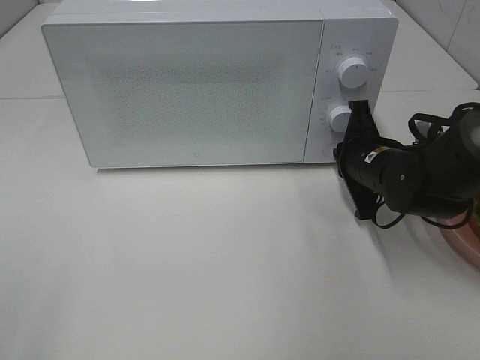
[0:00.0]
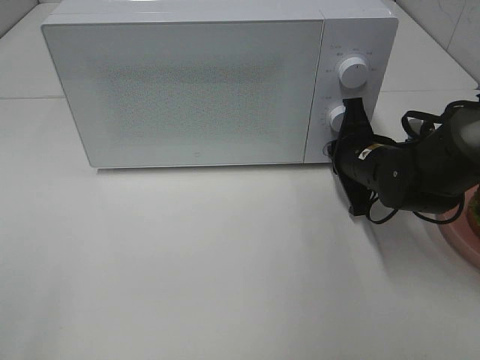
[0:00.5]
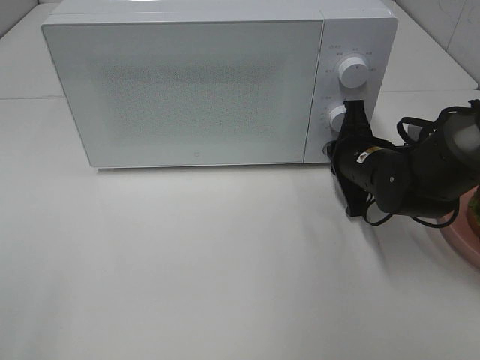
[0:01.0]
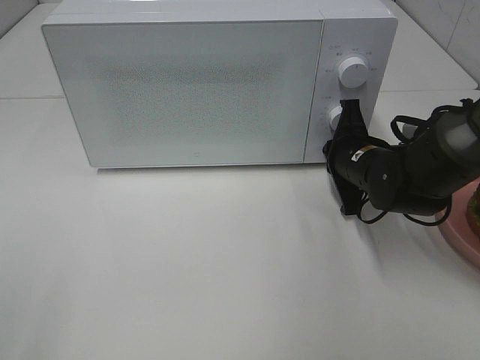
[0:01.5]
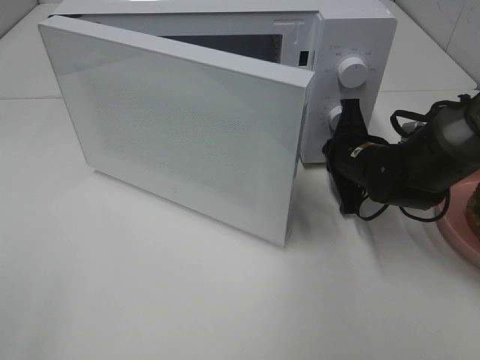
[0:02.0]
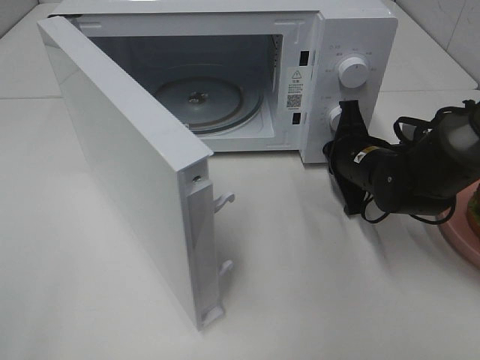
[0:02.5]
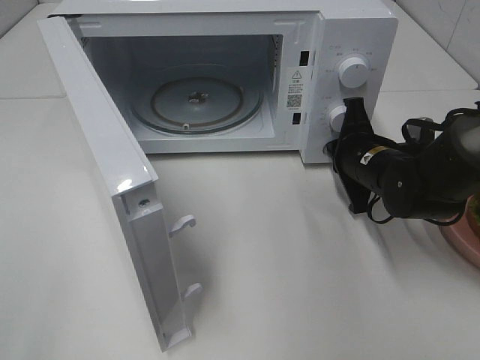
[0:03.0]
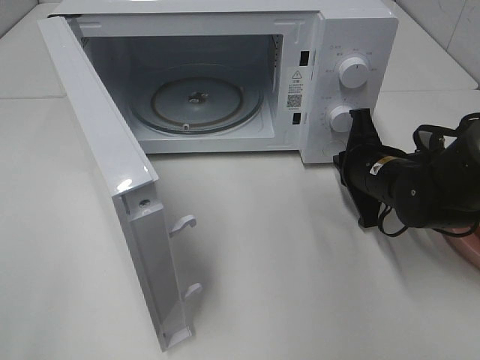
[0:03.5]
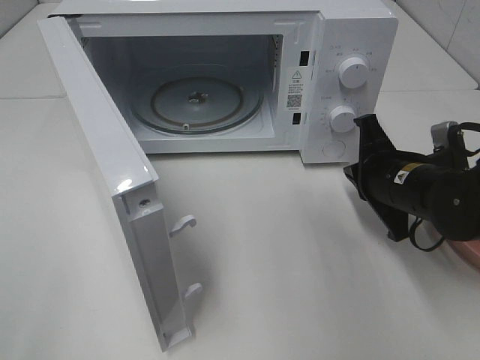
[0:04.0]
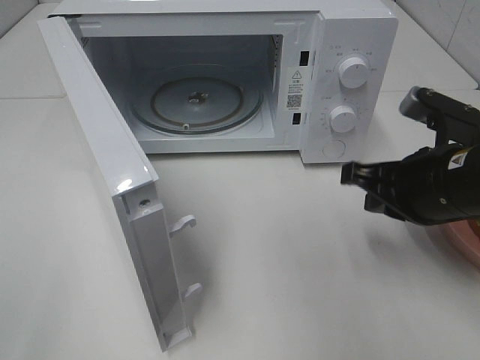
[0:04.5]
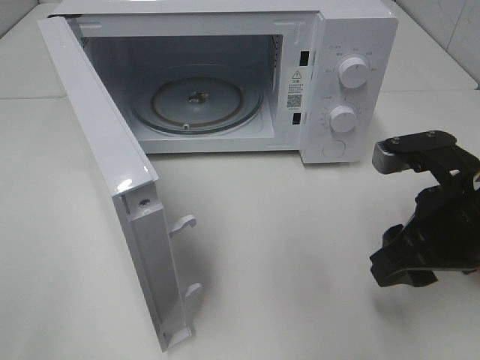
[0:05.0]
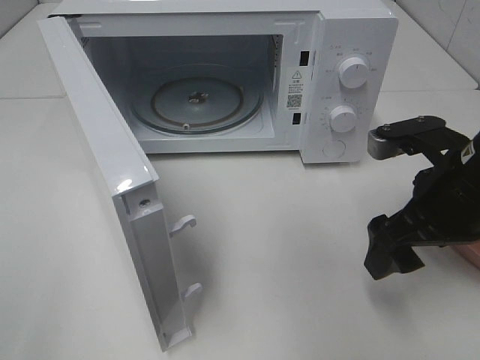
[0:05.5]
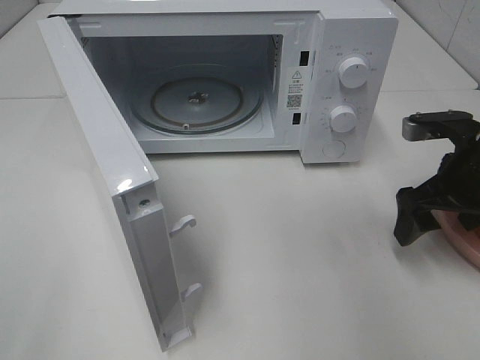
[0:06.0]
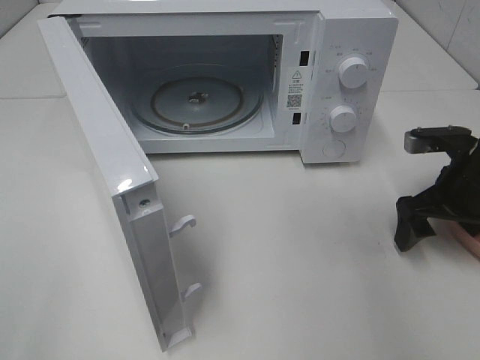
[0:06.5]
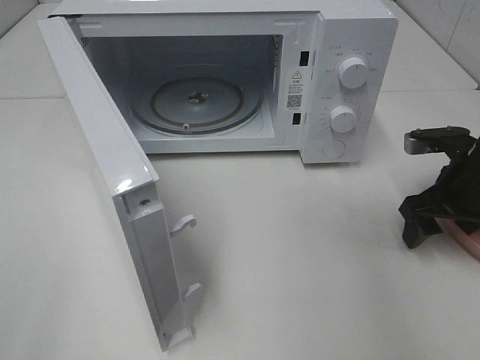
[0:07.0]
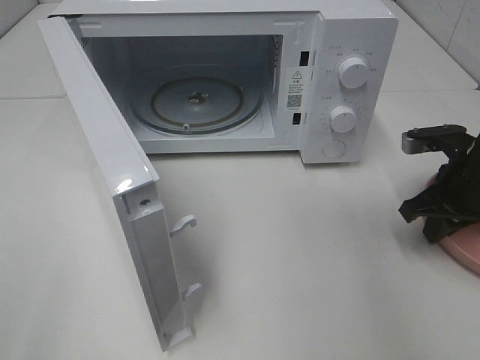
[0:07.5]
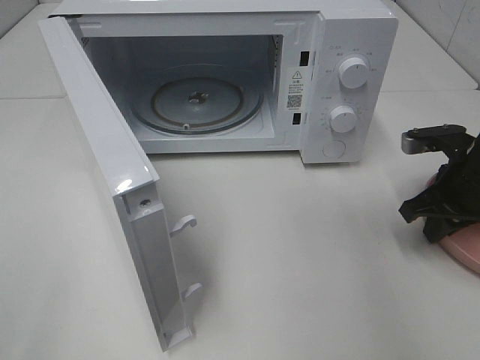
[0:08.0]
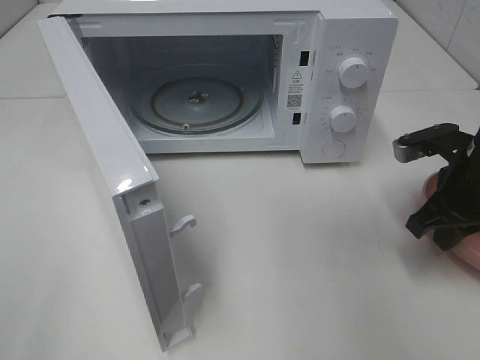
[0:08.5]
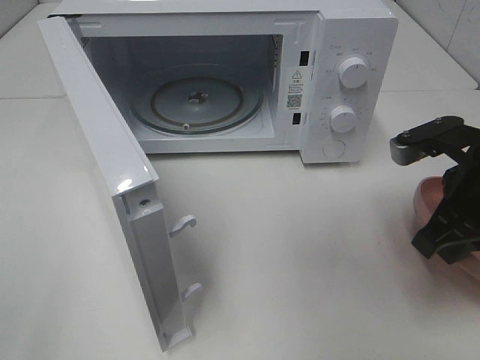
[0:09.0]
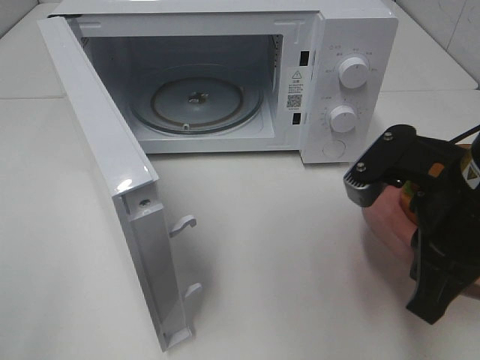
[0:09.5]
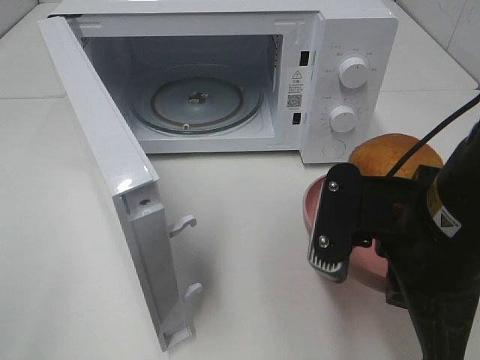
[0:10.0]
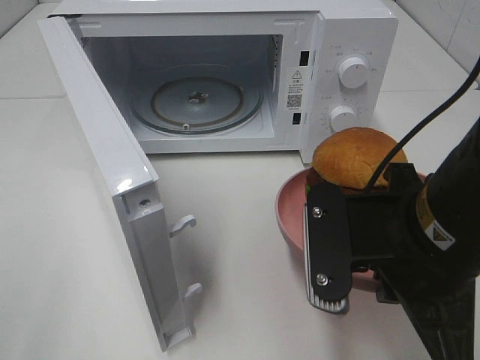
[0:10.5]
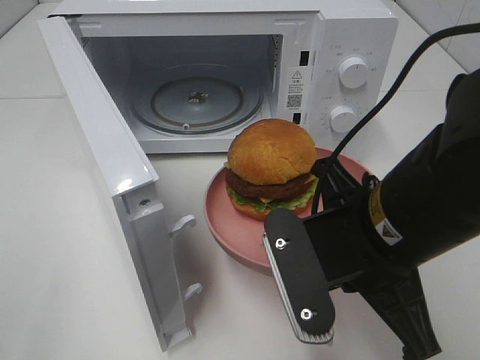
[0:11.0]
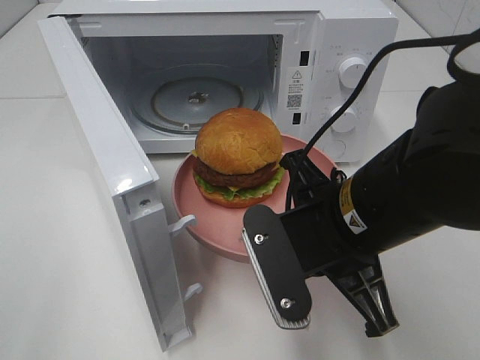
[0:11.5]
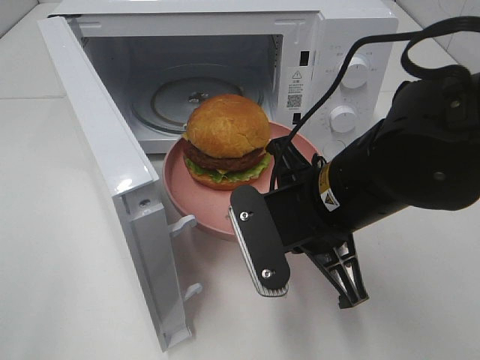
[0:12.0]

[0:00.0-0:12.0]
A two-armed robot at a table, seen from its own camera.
Task of the whole recording: Heat the burger.
Step, 0:00.0 to 0:03.0: Right hand: press the switch.
Step, 0:03.5 to 0:07.5: Right hand: grab the plate with the hamburger.
0:00.0 to 0:02.0: The grippers move only a little.
0:02.0 to 0:04.0: The right gripper goes approximately 5 cm backward.
0:04.0 to 0:06.0: The right gripper is displaced to the right by roughly 5 cm, moves approximately 10 cm backward and comes back, and opens.
0:06.0 to 0:08.0: The right gripper closes.
0:08.0 to 0:10.0: The right gripper moves backward, to the left and upward, some 25 cm.
0:10.0 to 0:12.0: The right gripper heads forward and to the left, covering roughly 10 cm.

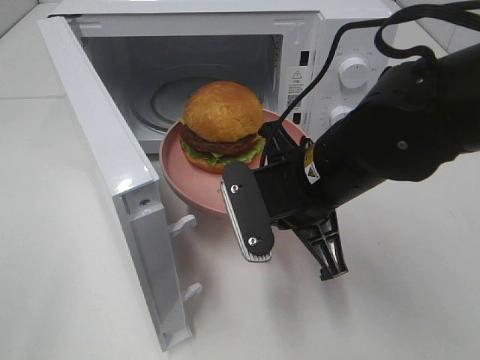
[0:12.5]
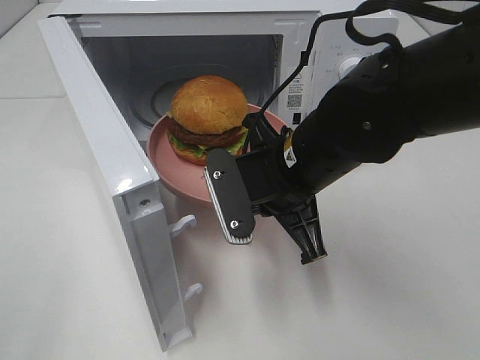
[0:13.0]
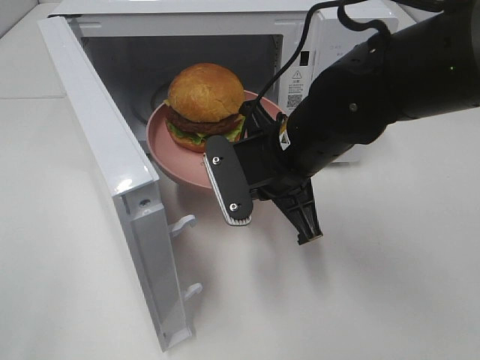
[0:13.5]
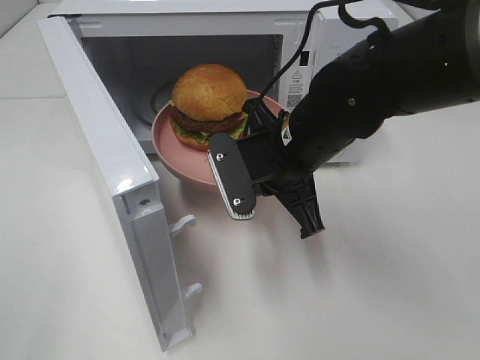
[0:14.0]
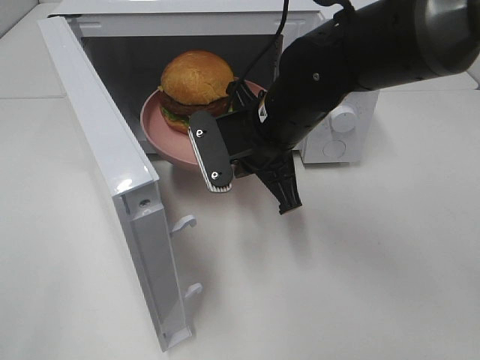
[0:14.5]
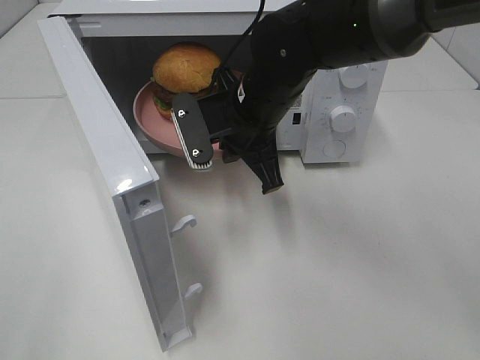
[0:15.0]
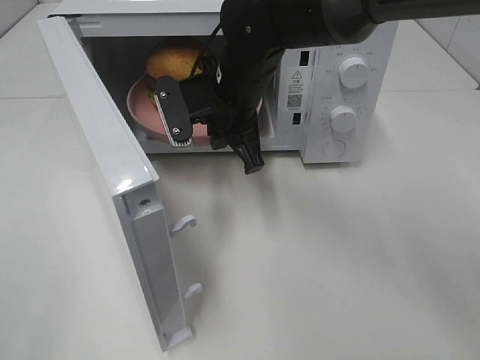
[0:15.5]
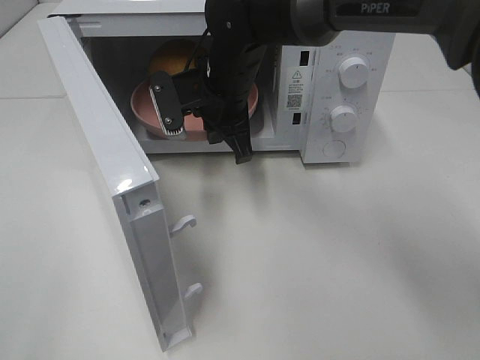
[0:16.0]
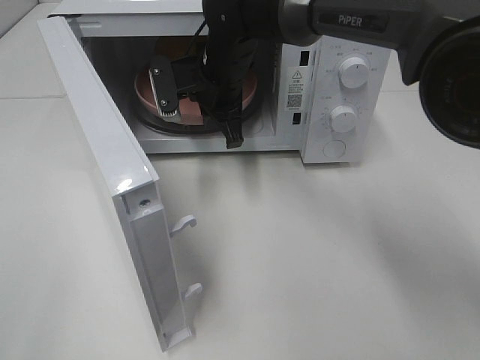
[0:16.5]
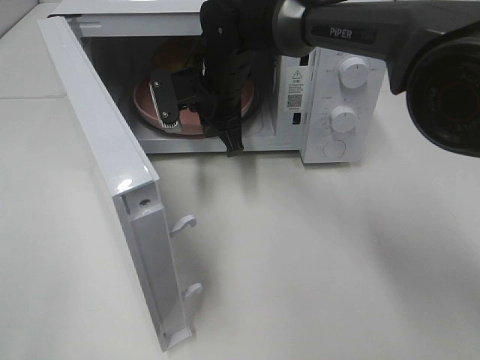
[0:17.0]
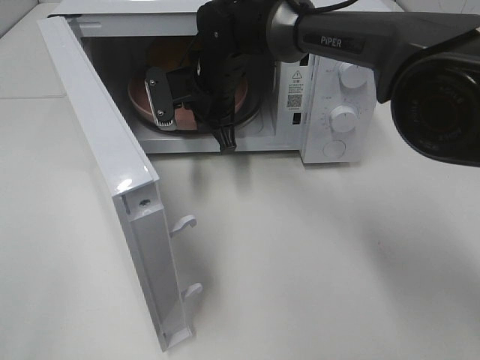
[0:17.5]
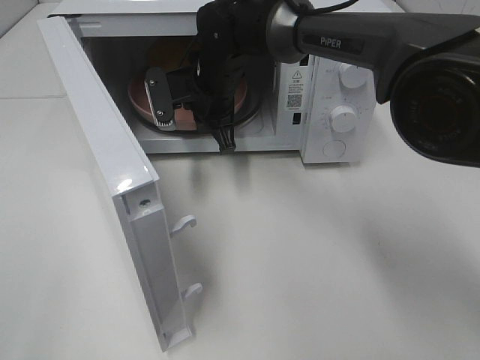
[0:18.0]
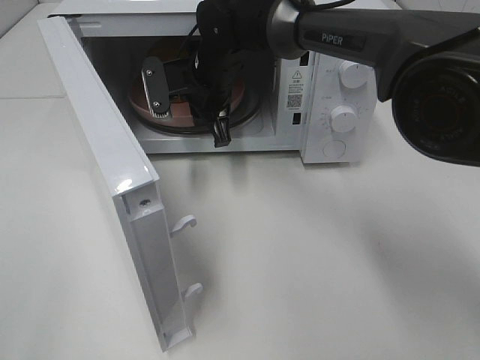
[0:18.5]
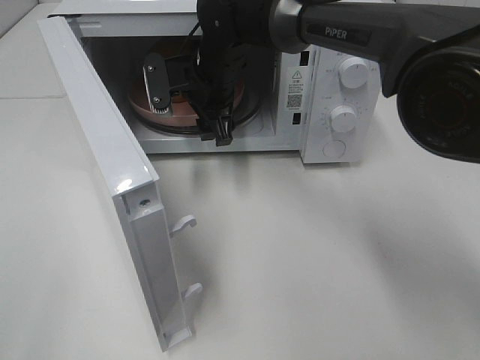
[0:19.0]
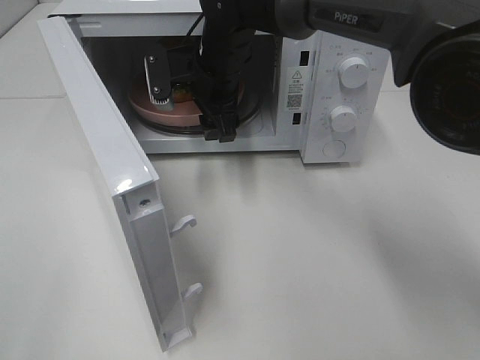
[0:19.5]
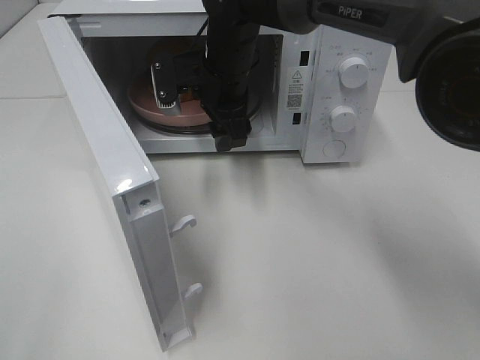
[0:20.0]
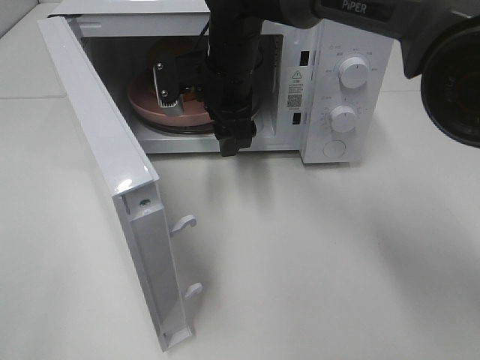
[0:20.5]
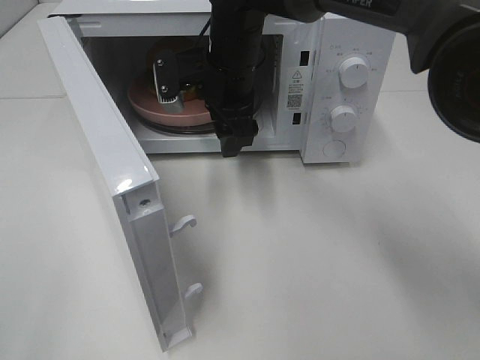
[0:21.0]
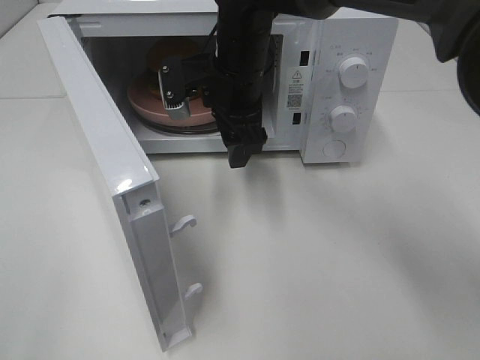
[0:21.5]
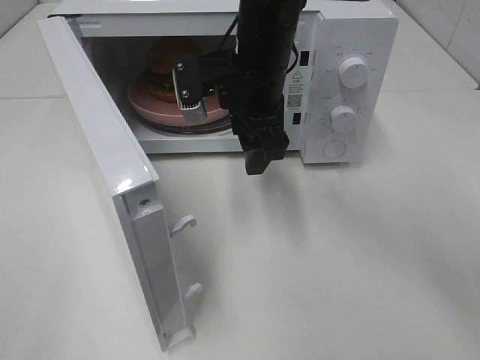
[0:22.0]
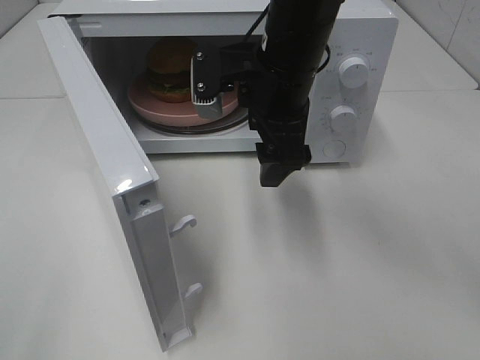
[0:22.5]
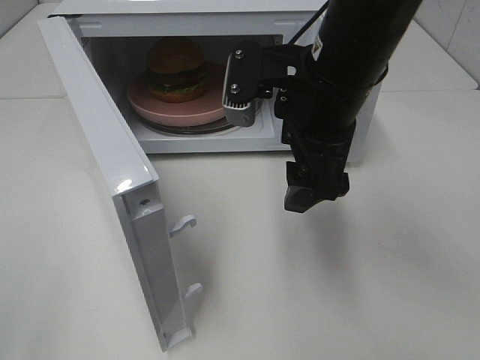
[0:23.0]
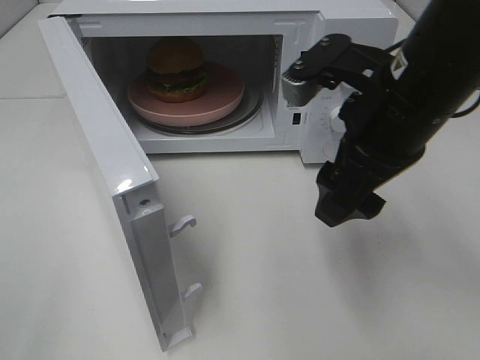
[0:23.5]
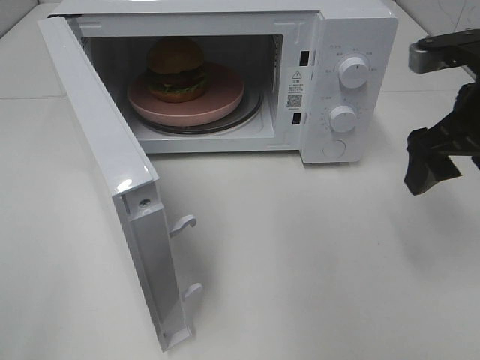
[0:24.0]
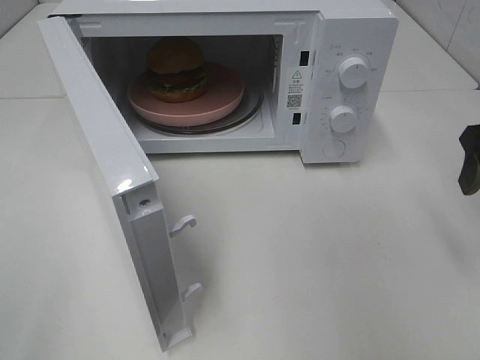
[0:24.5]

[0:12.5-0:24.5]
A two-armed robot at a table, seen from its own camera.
Task of the whole recording: Heat the burger.
Step, 0:12.5 to 0:18.5: Right hand: place the plate in the microwave.
0:12.5 to 0:14.5: The right gripper goes approximately 10 cm forward.
0:14.5 to 0:16.5: The right gripper moves forward and to the left, roughly 15 cm.
0:16.5 to 0:18.5: The grippers make only small movements.
0:18.5 to 0:20.5: The right gripper opens its fingers.
0:20.5 to 0:22.5: The right gripper moves backward and to the right, approximately 10 cm.
0:22.5 to 0:24.5: The right gripper is displaced to the right by about 25 cm.

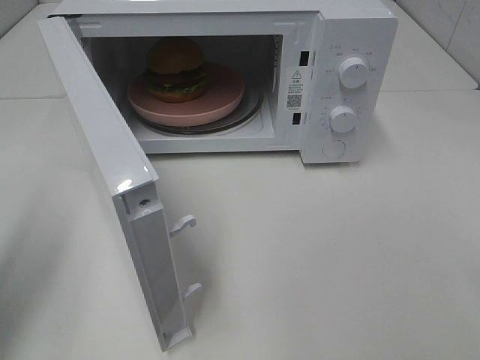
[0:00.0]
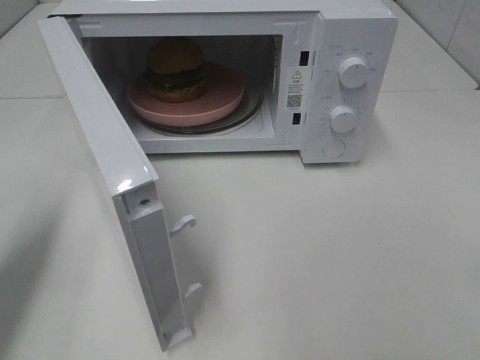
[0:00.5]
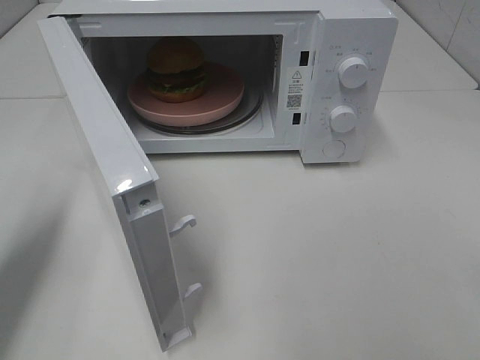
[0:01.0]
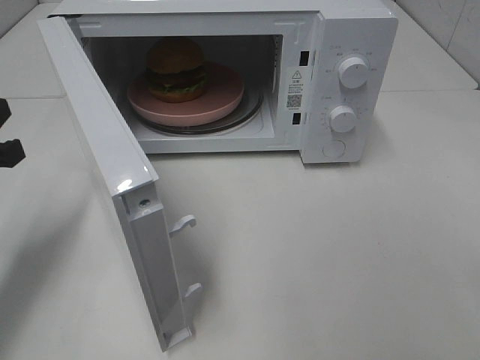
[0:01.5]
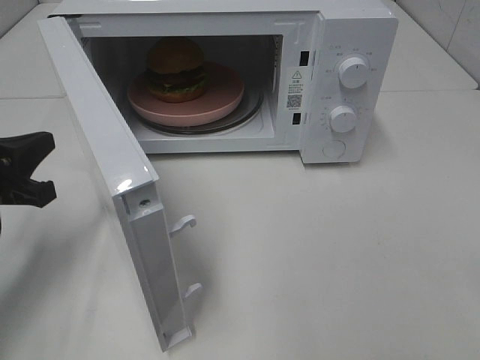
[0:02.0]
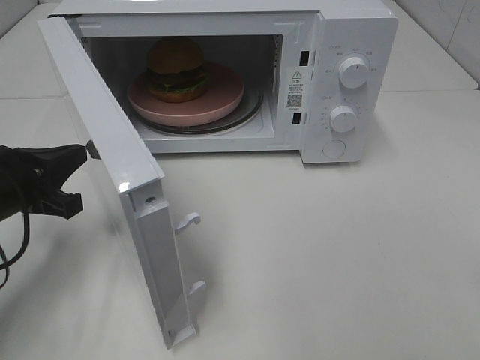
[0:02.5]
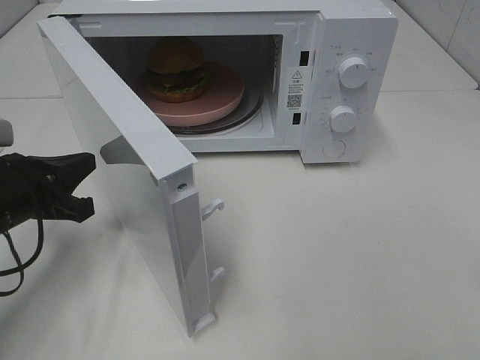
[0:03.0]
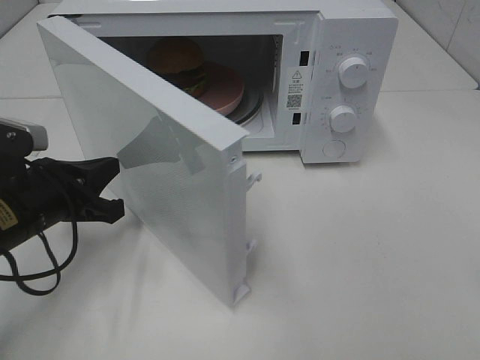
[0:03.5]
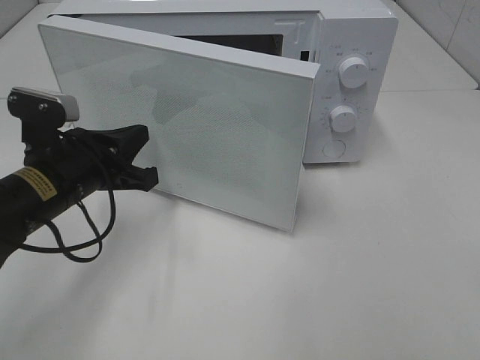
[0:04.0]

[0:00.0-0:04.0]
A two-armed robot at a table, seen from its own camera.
Task of the whole recording: Heat the burger.
0:00.0 to 0:02.0: The left gripper moves downward and forward, roughly 20 cm, and closes.
0:02.0 to 0:04.0: The left gripper is displaced to the right by roughly 10 cm.
